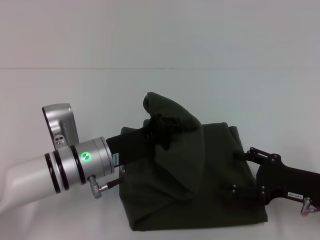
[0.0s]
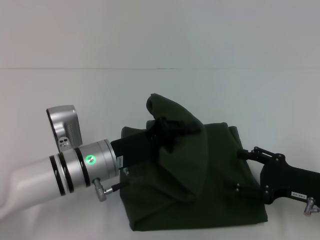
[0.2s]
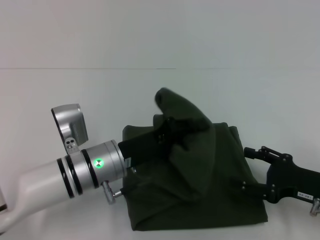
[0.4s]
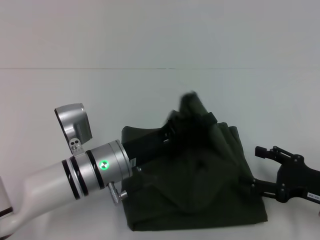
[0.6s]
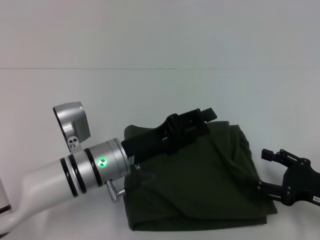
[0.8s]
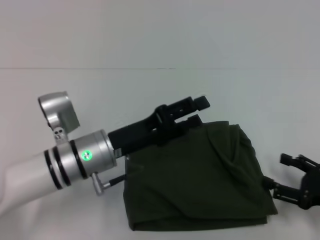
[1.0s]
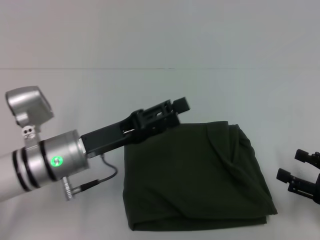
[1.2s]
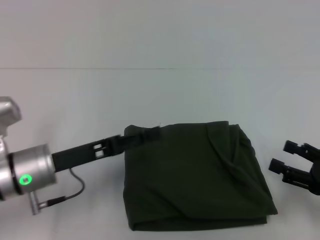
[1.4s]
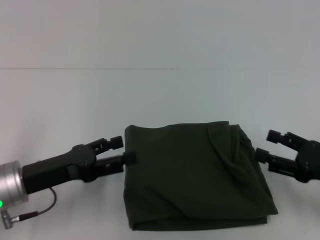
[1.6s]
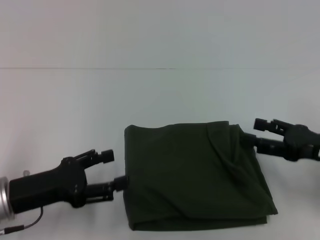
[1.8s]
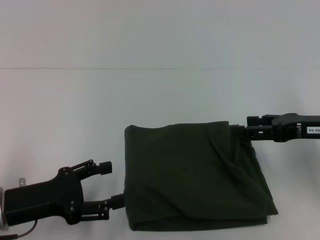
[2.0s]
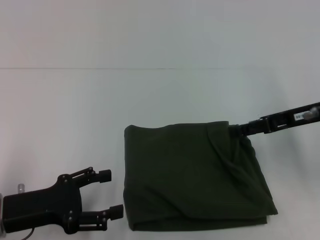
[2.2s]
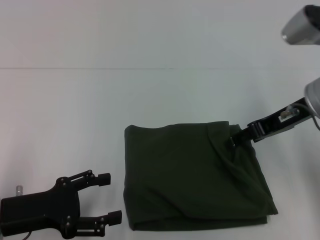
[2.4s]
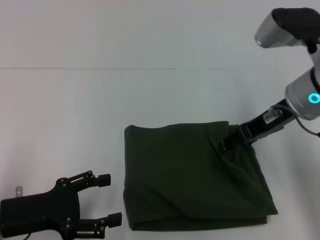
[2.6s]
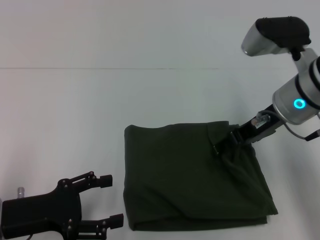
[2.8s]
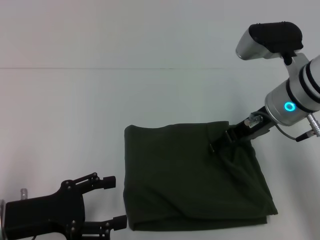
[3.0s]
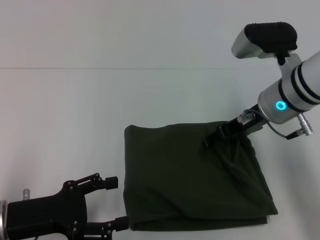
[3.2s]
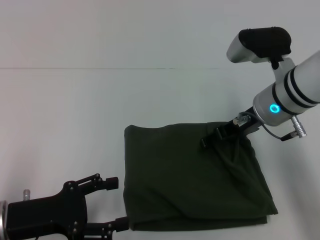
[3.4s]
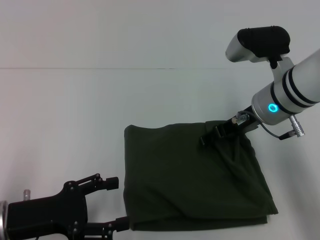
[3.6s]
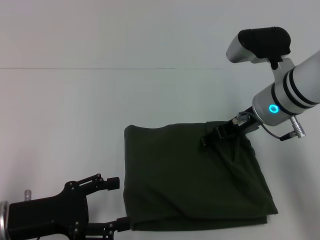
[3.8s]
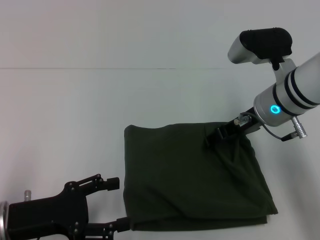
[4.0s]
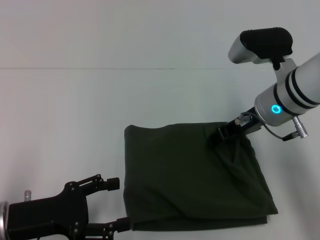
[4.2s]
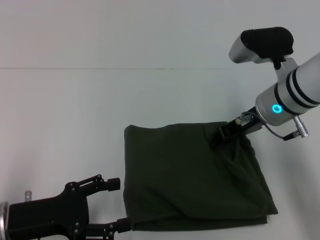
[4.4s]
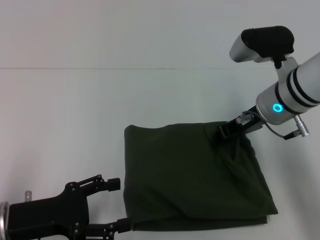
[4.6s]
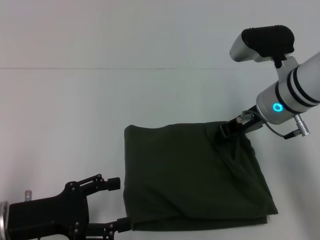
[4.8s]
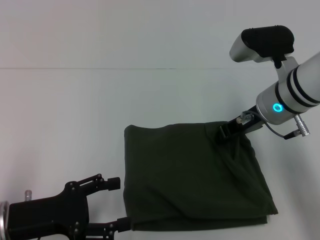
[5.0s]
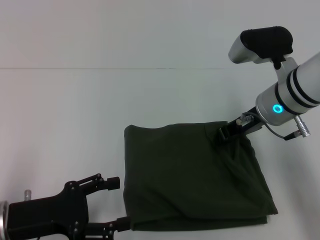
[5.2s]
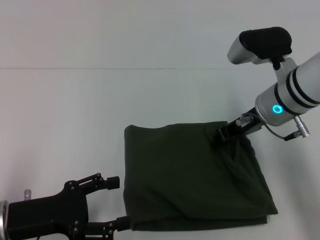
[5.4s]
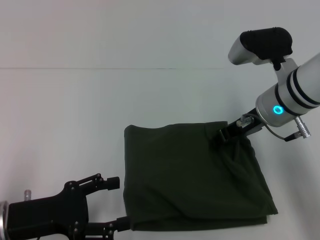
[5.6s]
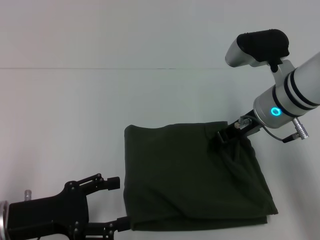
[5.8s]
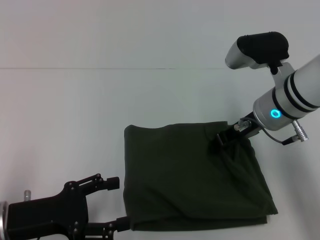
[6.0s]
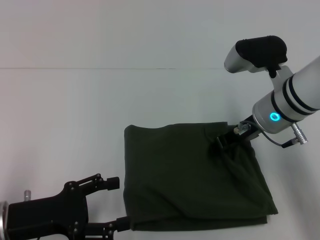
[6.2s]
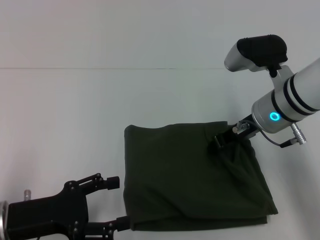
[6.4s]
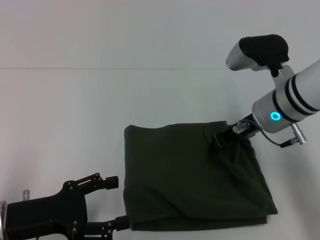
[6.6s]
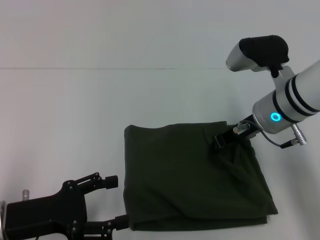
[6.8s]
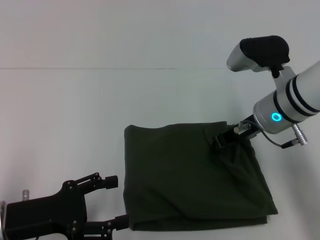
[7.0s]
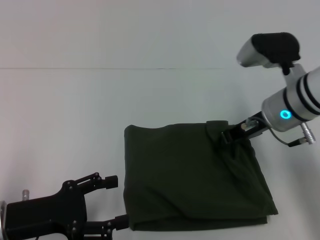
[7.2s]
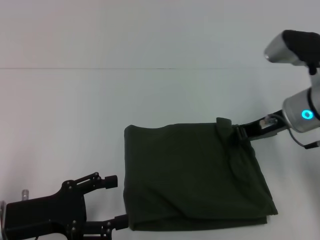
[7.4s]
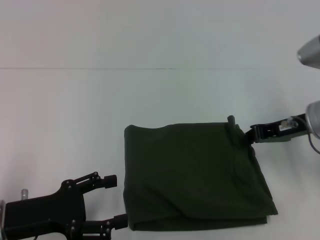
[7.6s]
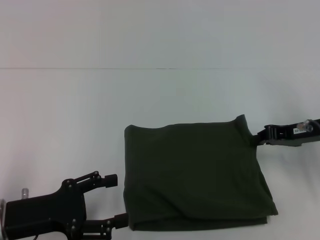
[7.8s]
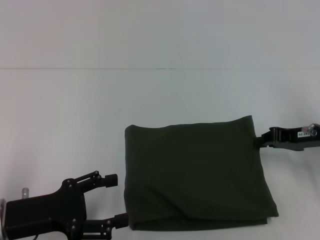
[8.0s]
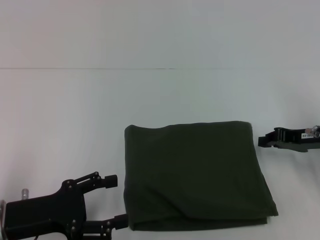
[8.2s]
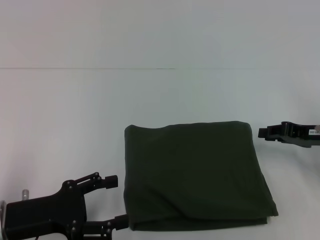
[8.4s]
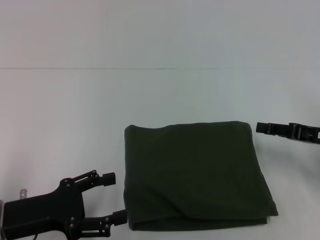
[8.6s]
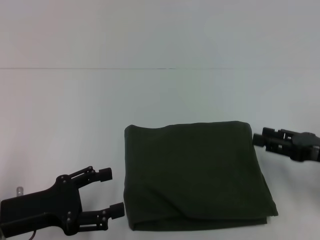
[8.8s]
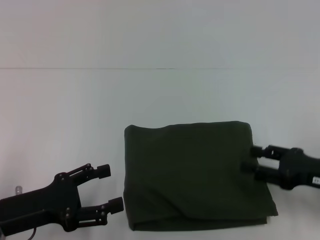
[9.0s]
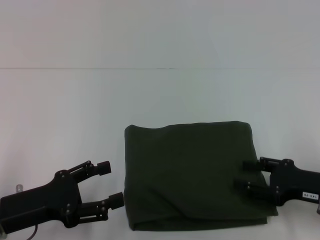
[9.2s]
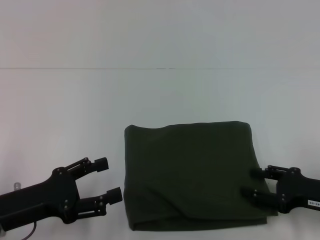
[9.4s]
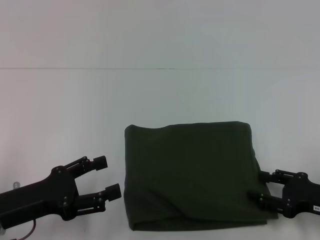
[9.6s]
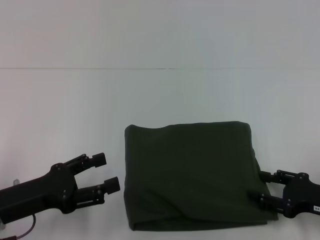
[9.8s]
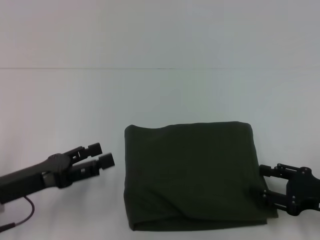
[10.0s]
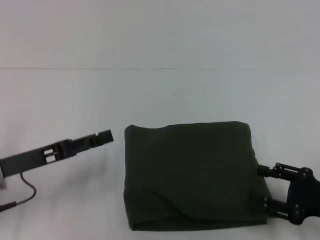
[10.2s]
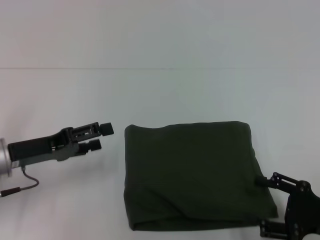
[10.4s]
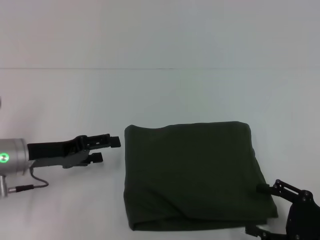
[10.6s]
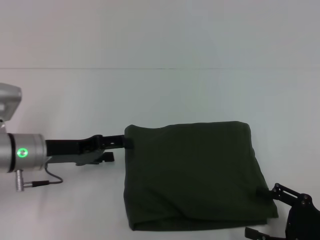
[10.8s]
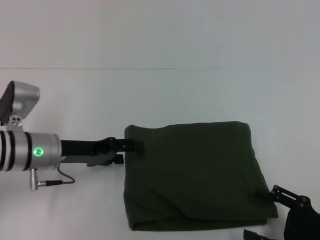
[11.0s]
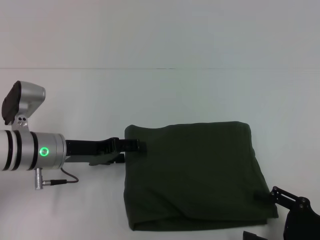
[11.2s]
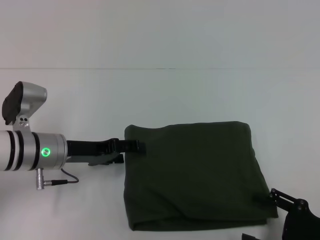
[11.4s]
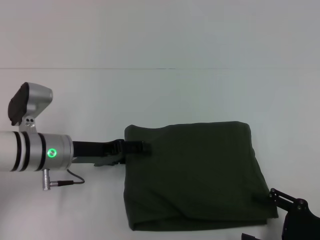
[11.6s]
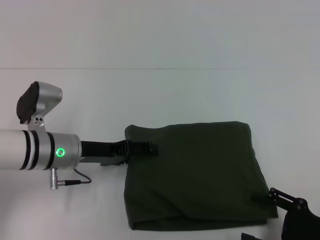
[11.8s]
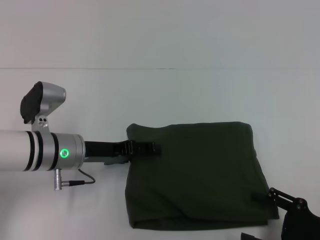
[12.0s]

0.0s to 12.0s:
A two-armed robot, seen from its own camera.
0.0s to 1.6s: The left gripper moves to the left, some 10 cm, and opens up.
1.6s to 3.0s: The right gripper moves to the left, forward and upward, some 20 cm.
3.0s to 4.4s: The right gripper closes its fingers.
4.4s to 6.0s: Both grippers stay put.
6.0s to 7.6s: The right gripper shifts about 10 cm to the right, and closes.
7.6s to 9.0s: The right gripper is displaced backward, downward and to the right by approximately 15 cm, and opens its fingers.
9.0s to 10.4s: The left gripper travels forward by roughly 10 cm, while the right gripper travels backward by some 5 cm.
10.4s to 12.0s: The left gripper is displaced to the right by approximately 10 cm.

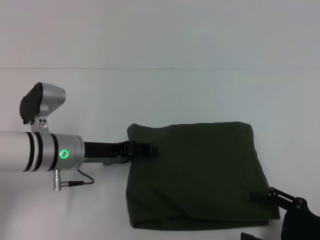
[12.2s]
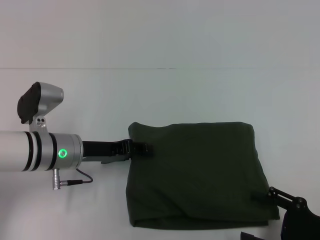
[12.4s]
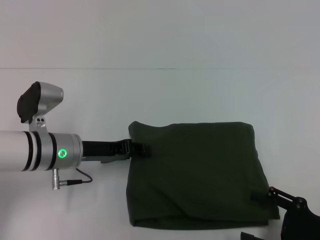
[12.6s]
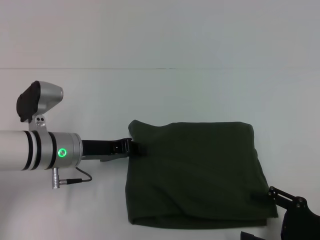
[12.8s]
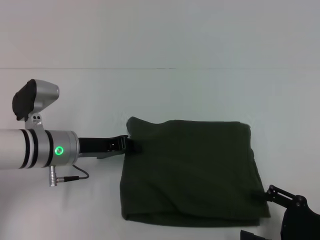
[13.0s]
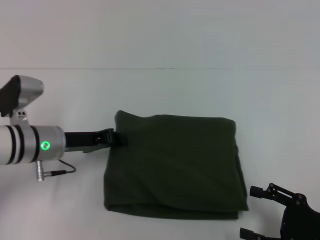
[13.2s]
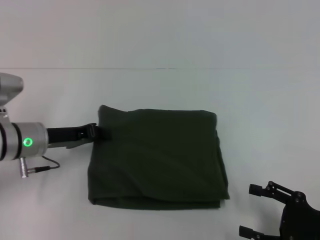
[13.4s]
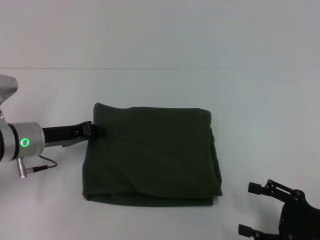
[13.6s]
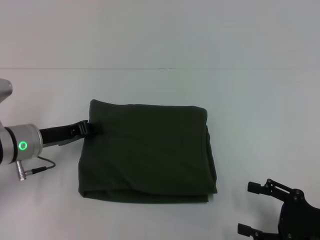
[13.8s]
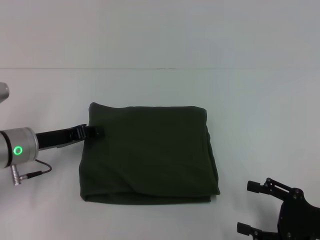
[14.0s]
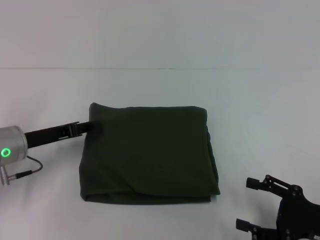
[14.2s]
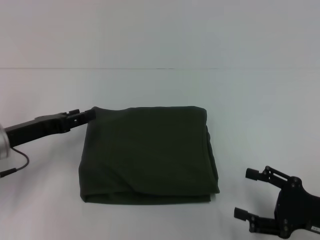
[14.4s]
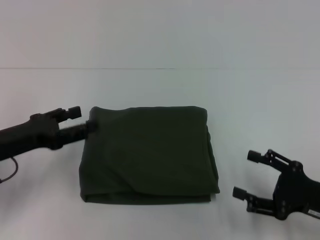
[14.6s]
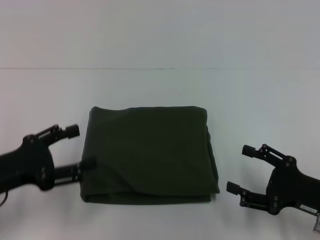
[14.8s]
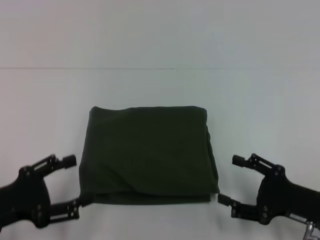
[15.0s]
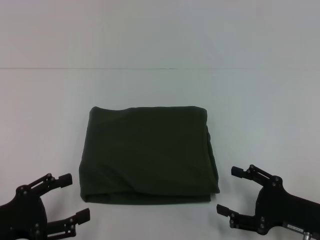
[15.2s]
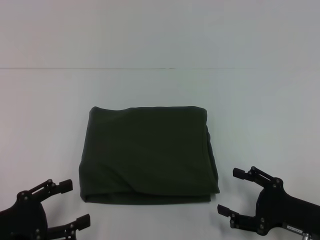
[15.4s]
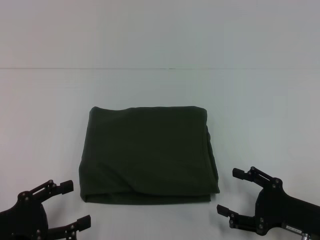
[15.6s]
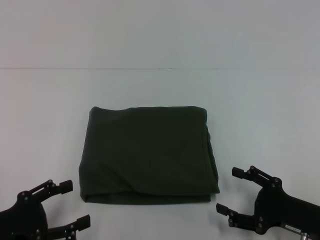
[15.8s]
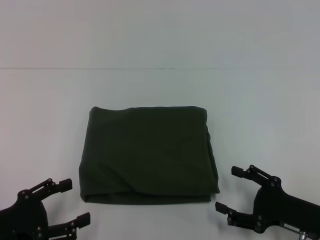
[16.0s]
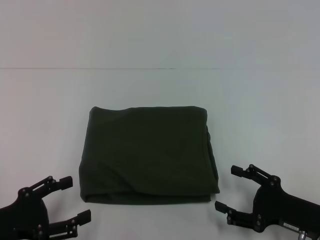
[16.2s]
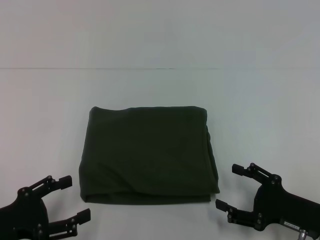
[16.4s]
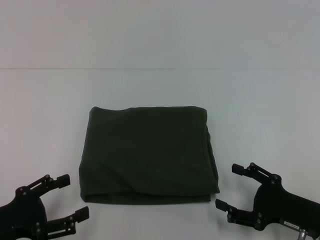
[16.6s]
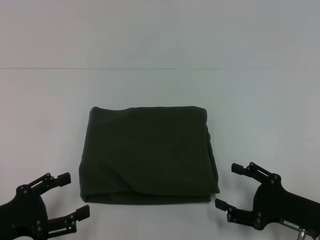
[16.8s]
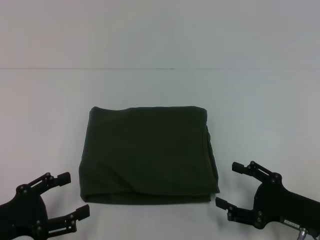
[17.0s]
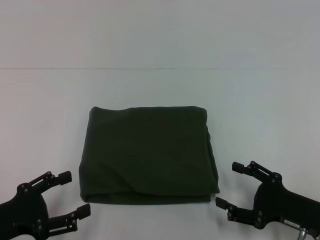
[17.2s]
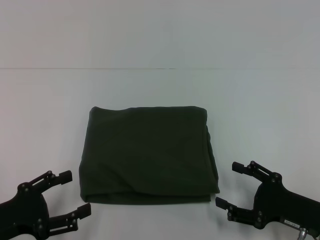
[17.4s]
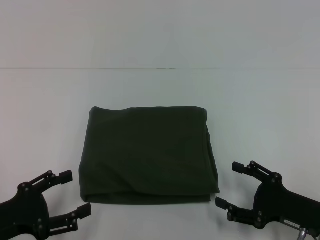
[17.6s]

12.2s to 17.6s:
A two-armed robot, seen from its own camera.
12.2s to 13.6s: The left gripper travels to the left by about 5 cm, and closes.
13.6s to 15.0s: The left gripper heads backward, covering roughly 15 cm, and opens.
15.0s to 16.2s: There are only small adjustments of the grippers.
16.2s to 17.6s: Neither gripper changes place.

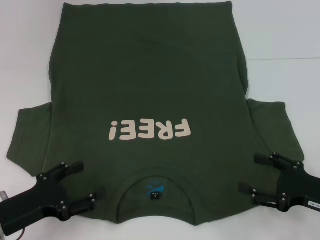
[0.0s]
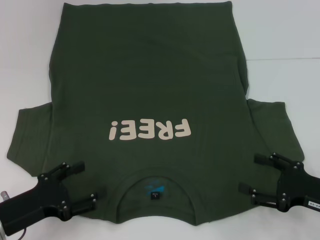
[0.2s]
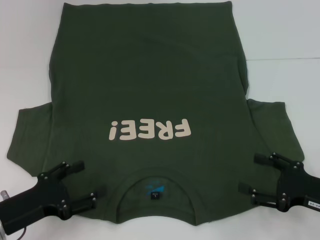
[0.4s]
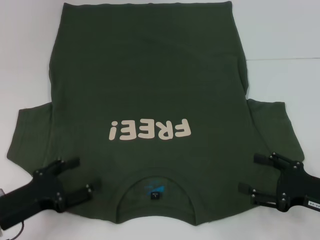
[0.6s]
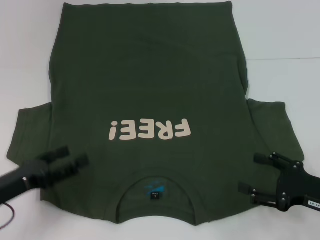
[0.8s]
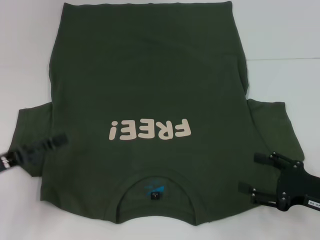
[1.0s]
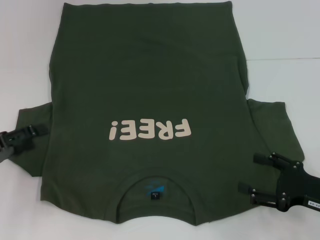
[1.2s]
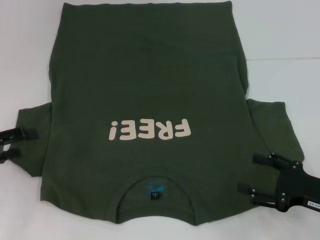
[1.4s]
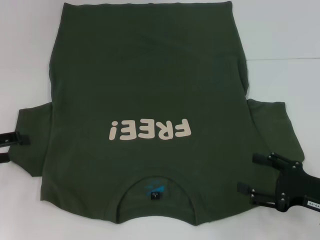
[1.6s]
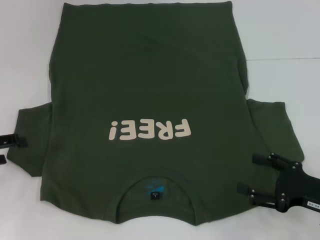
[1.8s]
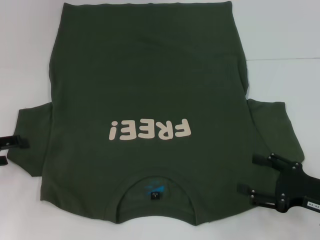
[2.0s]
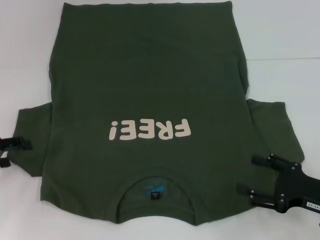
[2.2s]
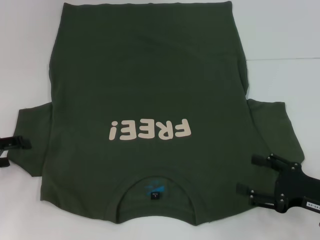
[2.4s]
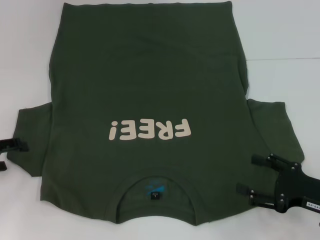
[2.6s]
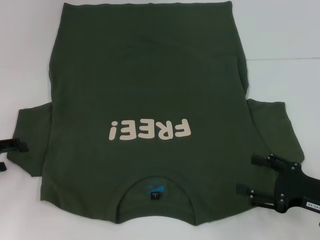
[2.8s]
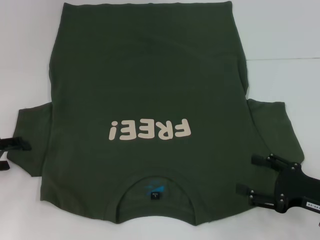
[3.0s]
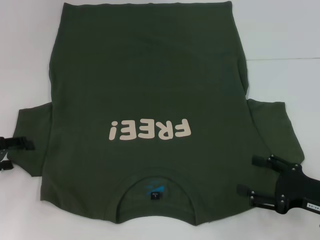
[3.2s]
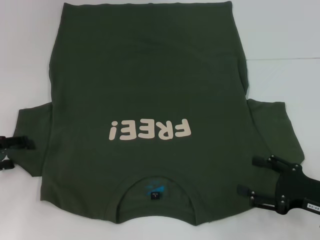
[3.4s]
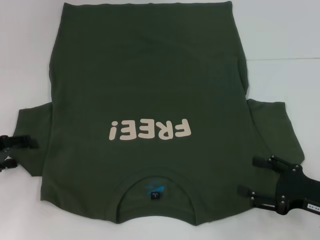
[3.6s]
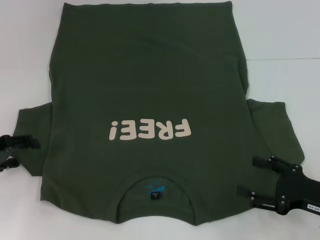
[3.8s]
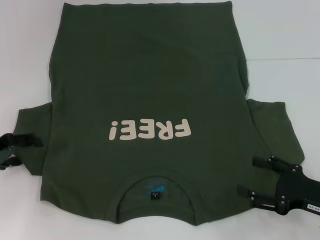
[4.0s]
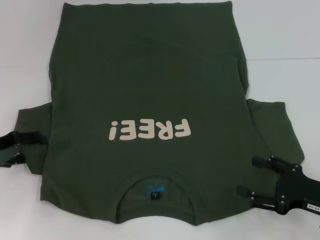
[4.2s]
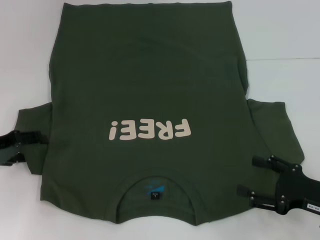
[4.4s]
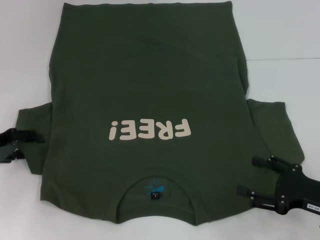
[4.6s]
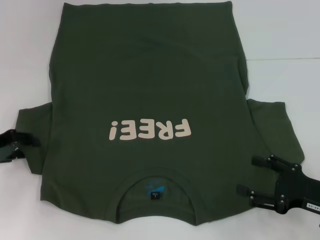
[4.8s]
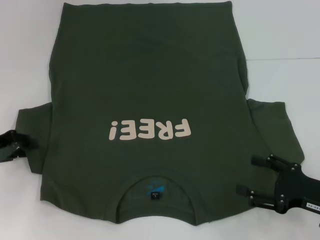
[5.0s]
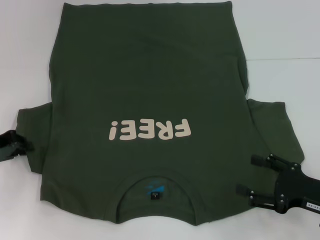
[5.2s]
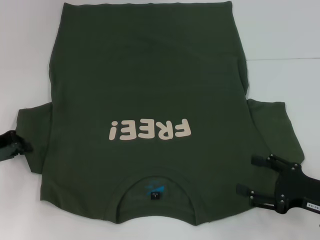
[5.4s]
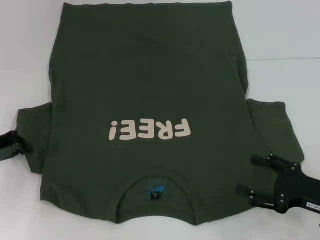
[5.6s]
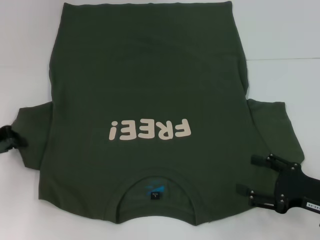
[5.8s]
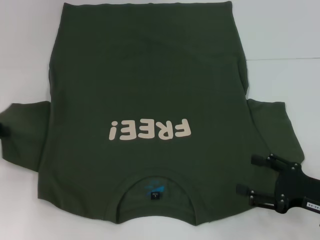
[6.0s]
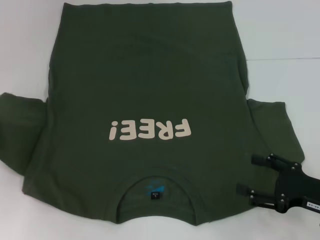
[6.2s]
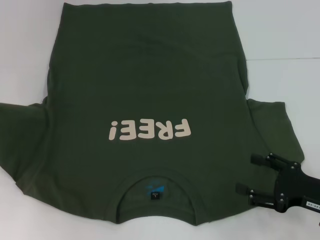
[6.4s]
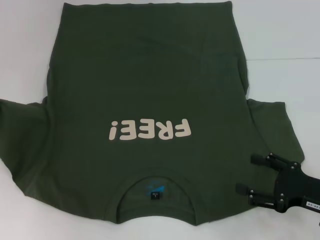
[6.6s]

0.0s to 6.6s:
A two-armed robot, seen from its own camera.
0.0s to 1.6s: The left gripper goes some 15 cm to the left, forward and upward.
1.6s to 3.2s: The grippers move only a little.
3.2s to 5.0s: The left gripper closes.
5.0s to 6.6s: The left gripper heads upward, covering some 10 cm, and closes.
